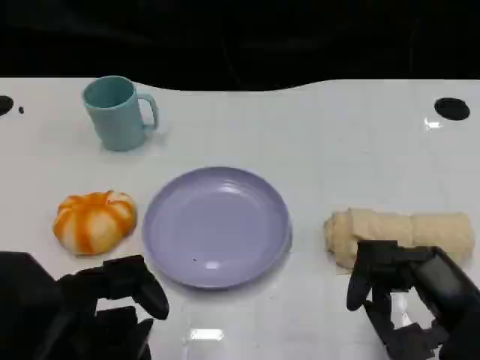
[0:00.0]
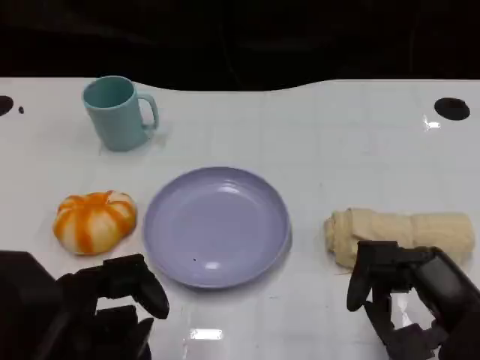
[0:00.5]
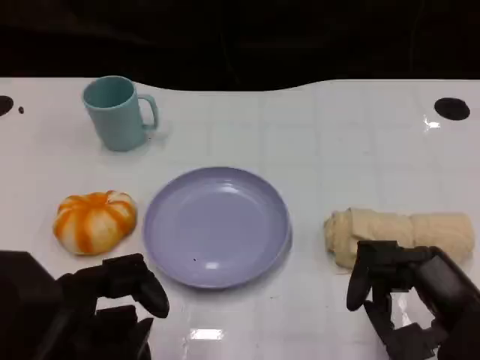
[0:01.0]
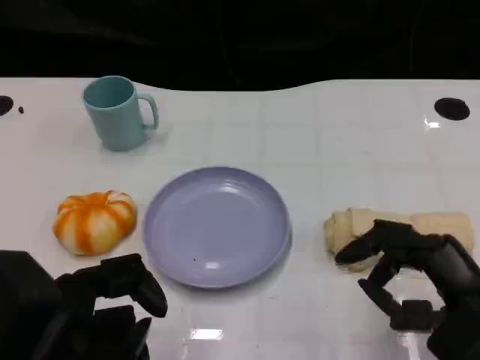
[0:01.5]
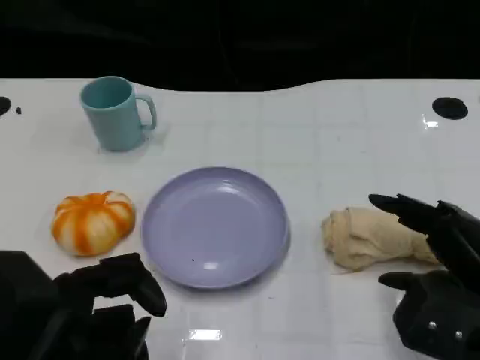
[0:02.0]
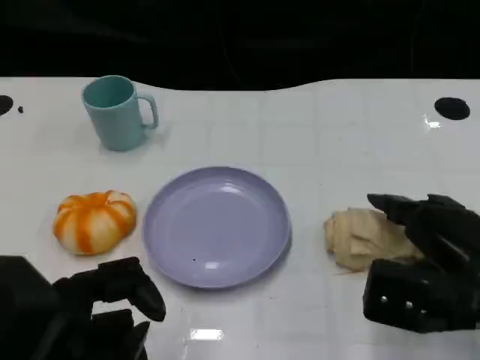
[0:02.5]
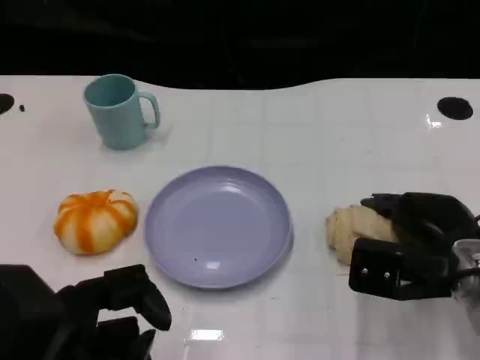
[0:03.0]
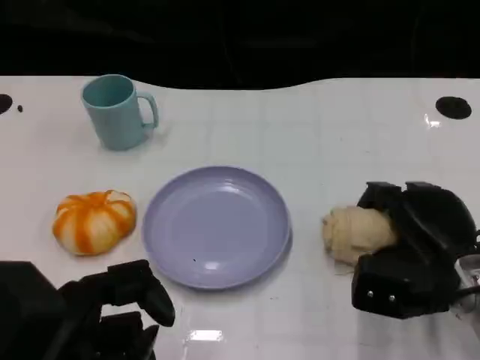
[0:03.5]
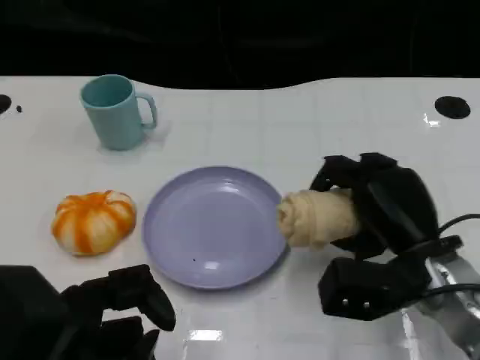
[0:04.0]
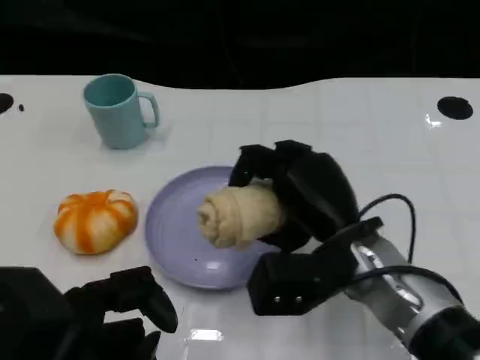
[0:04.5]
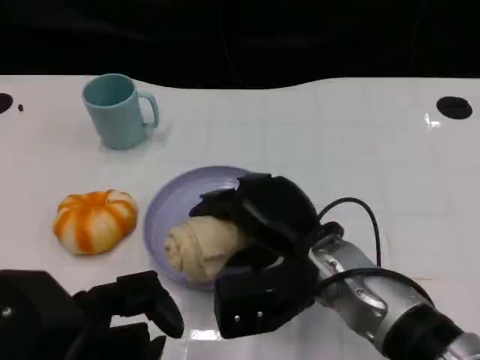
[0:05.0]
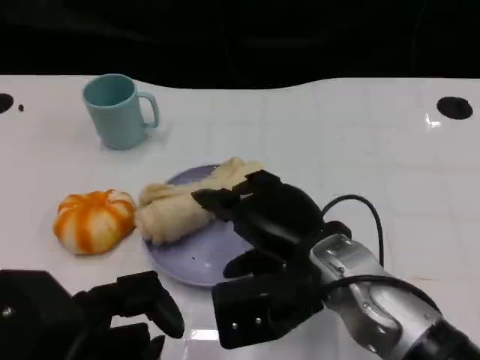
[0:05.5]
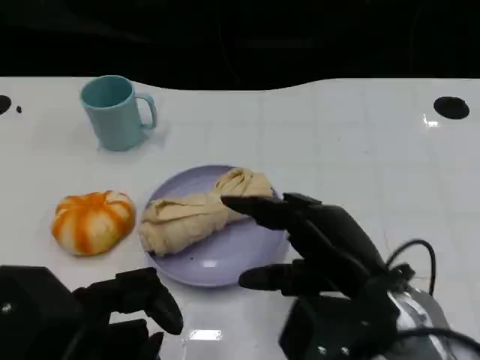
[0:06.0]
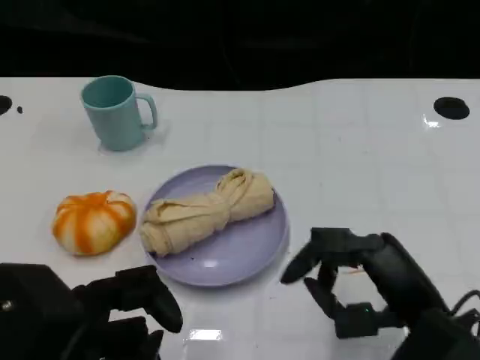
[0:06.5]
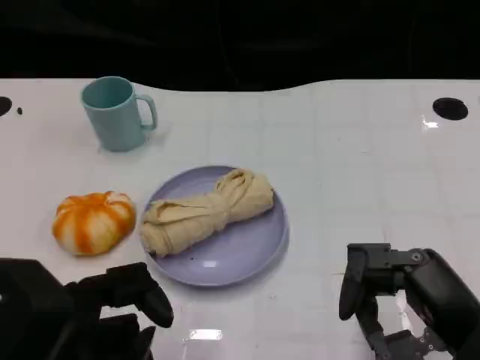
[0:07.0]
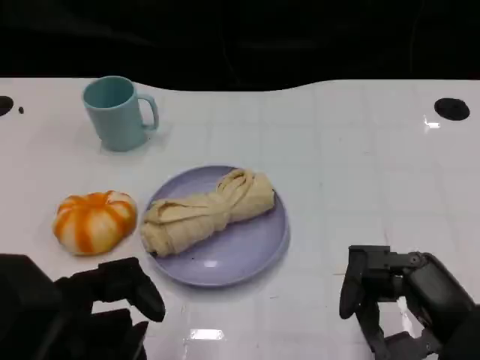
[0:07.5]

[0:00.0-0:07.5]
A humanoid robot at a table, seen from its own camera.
Task of the whole recording: Grasp the towel on the left side of the plate with the left hand and place it into the plate.
0:02.0 to 0:04.0: The right hand heads forward and to the left, covering approximately 10 cm.
0:04.0 to 0:05.5: The right hand shifts roughly 10 cm to the left.
0:05.5 to 0:07.5: The right hand moves to the right and backward, some 15 cm.

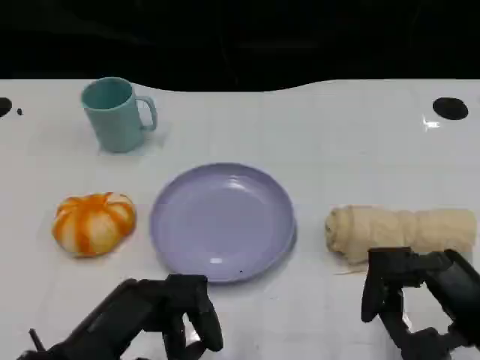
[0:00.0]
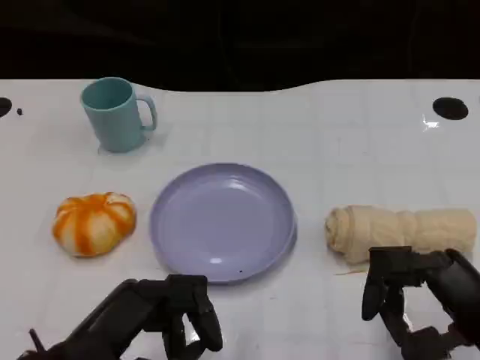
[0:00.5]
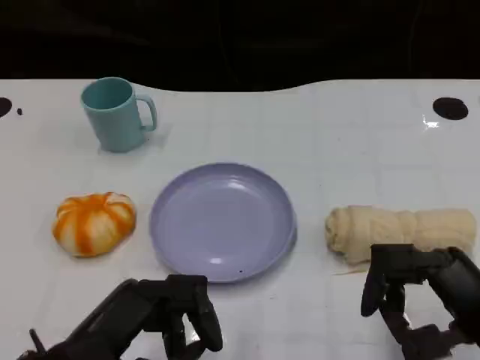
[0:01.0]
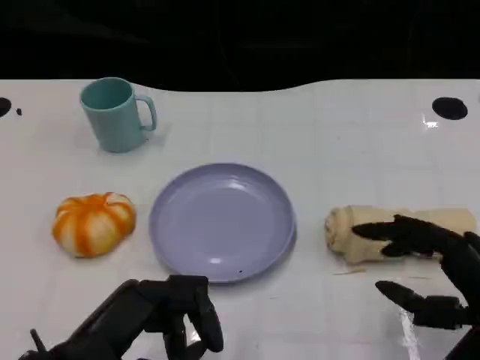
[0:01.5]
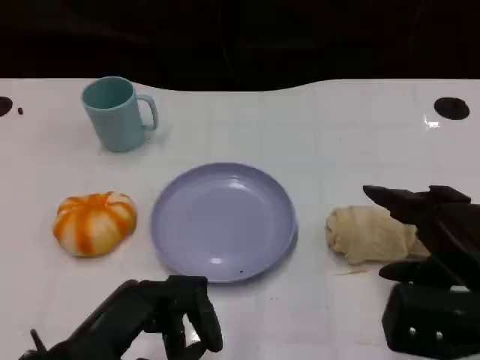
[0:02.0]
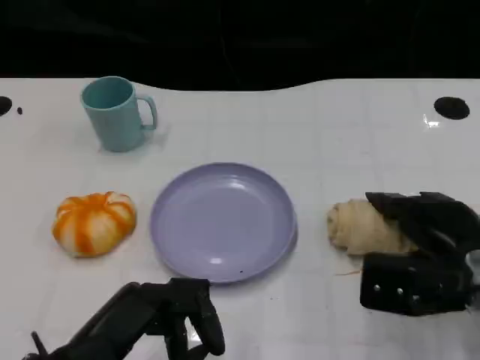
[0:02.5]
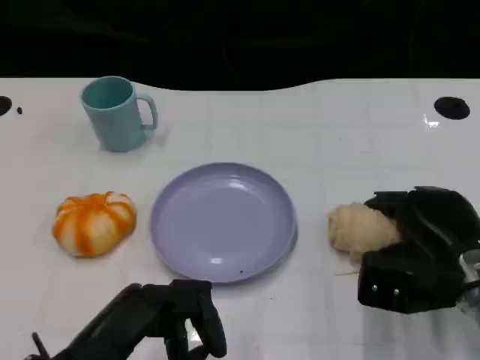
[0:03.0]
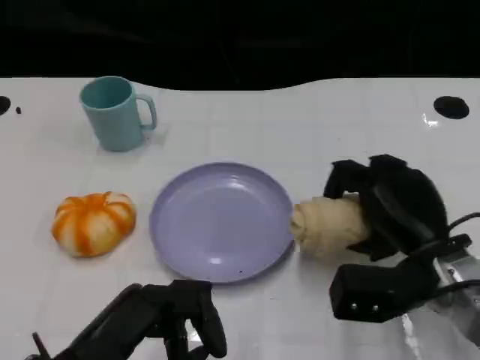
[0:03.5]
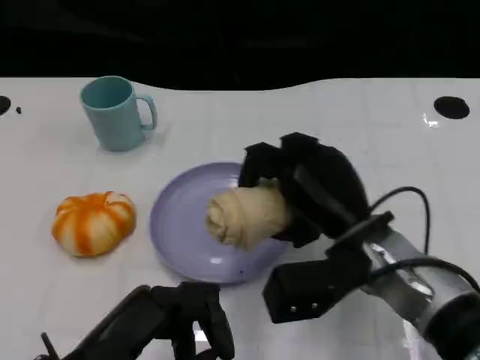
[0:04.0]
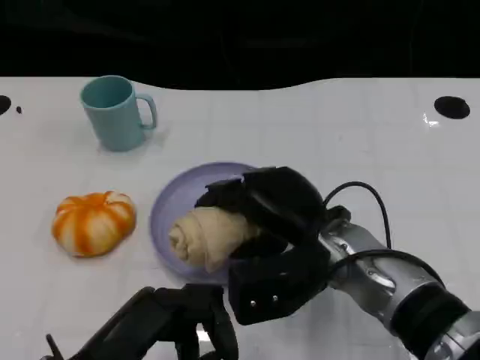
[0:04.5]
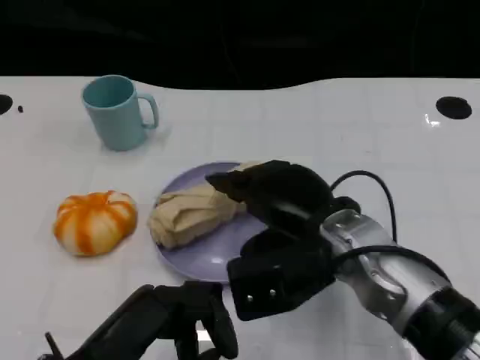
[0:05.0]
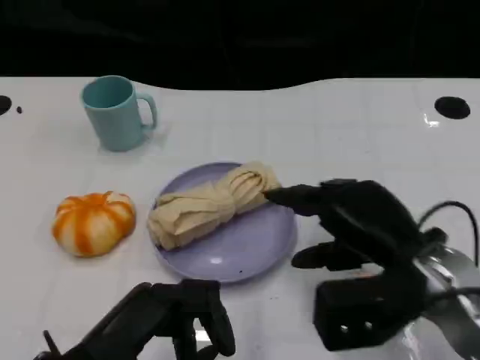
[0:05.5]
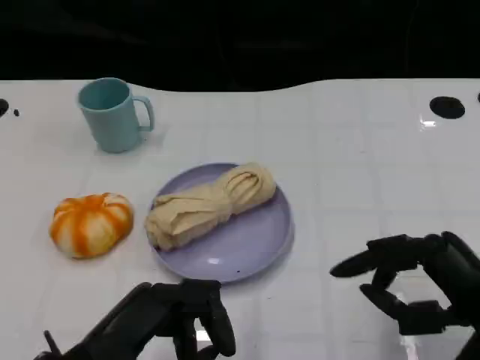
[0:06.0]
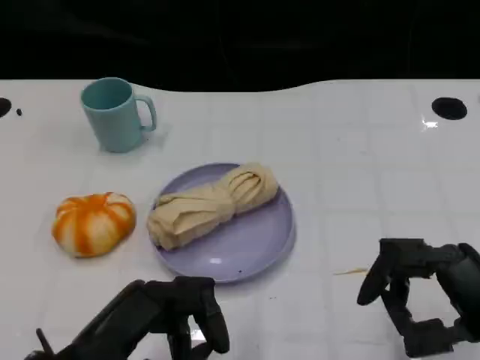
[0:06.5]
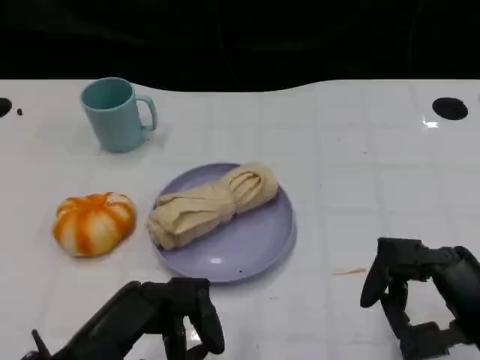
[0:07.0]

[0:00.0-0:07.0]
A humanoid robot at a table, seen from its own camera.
Task of the whole recording: Grasp the towel on the left side of the plate with the left hand and place it into the plate.
0:00.0 to 0:02.0: The right hand heads forward, covering about 5 cm.
0:02.0 to 0:03.5: The right hand is displaced forward and to the left by roughly 10 cm.
0:03.5 to 0:05.0: The right hand moves to the left, about 10 cm.
0:05.0 to 0:07.0: The right hand shifts approximately 20 cm to the right and backward.
